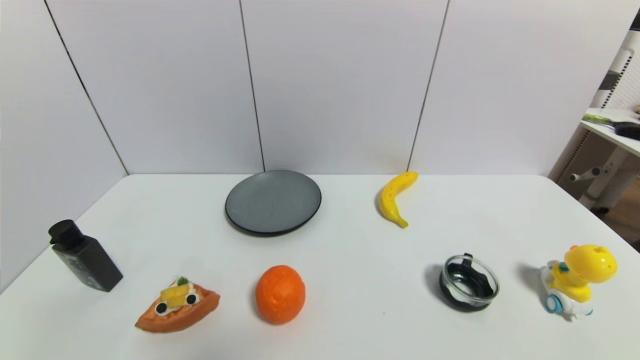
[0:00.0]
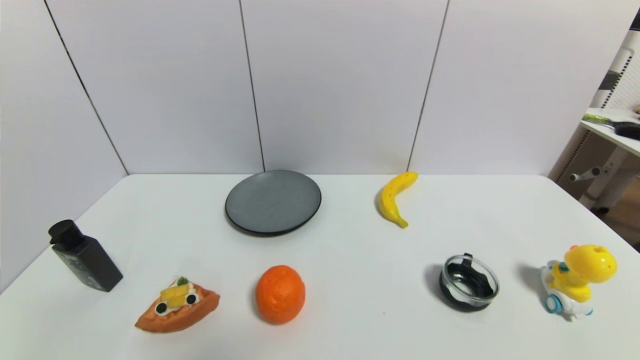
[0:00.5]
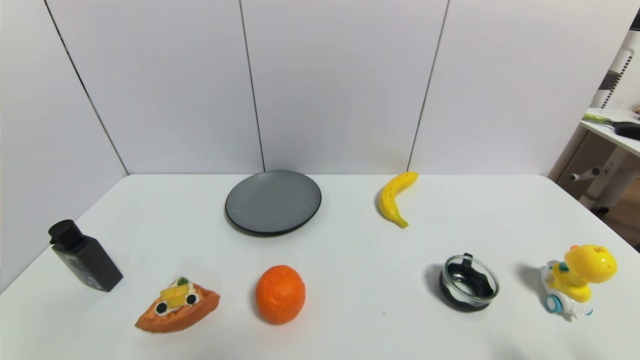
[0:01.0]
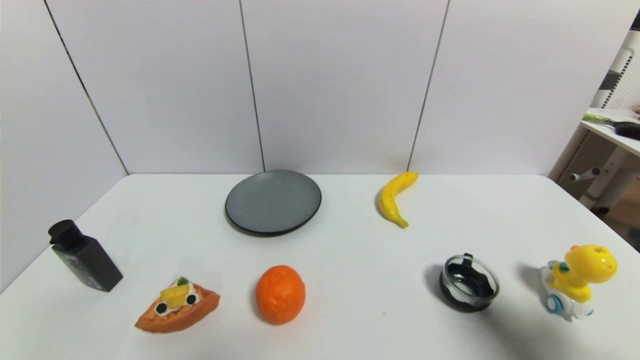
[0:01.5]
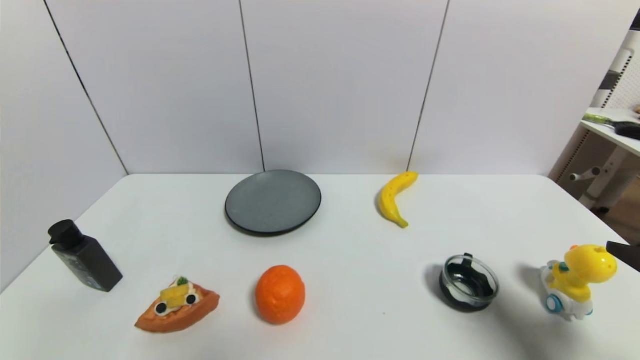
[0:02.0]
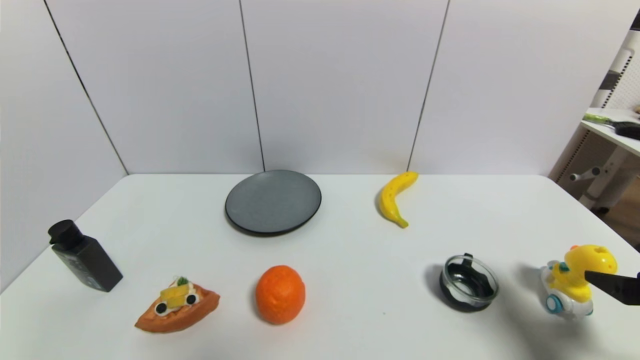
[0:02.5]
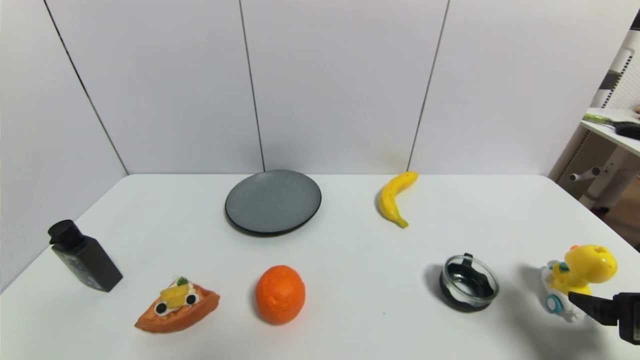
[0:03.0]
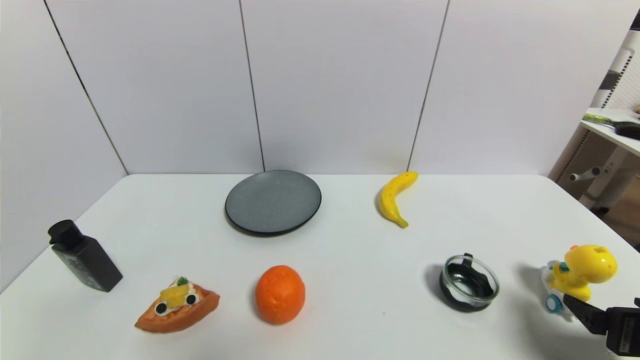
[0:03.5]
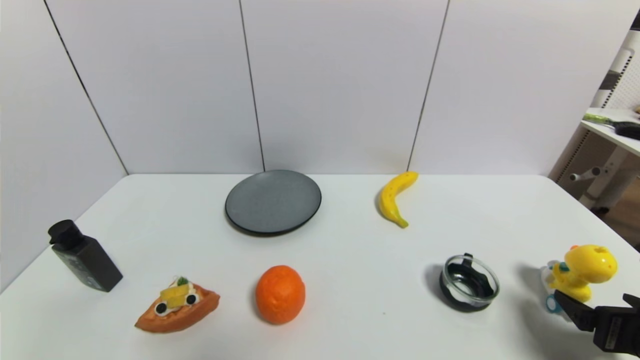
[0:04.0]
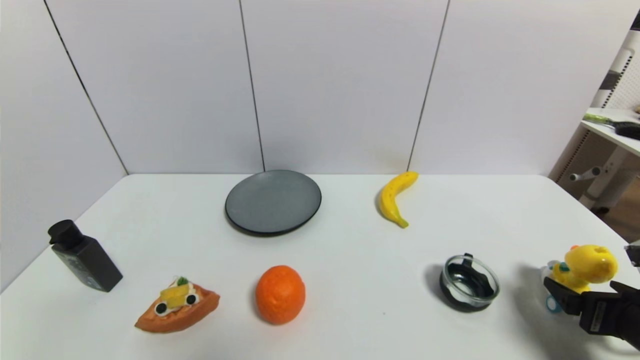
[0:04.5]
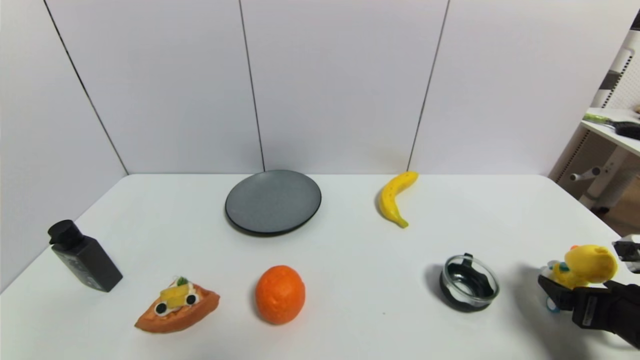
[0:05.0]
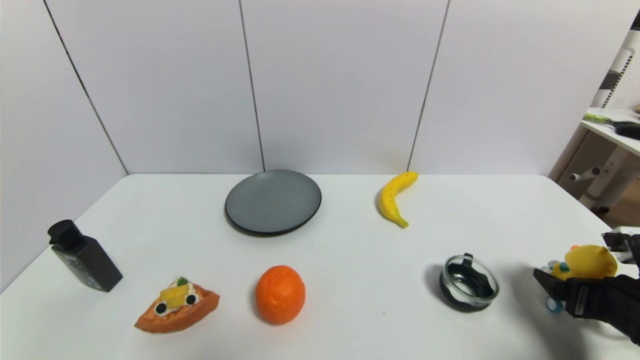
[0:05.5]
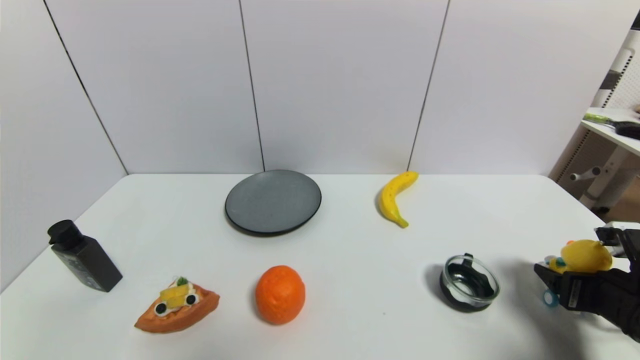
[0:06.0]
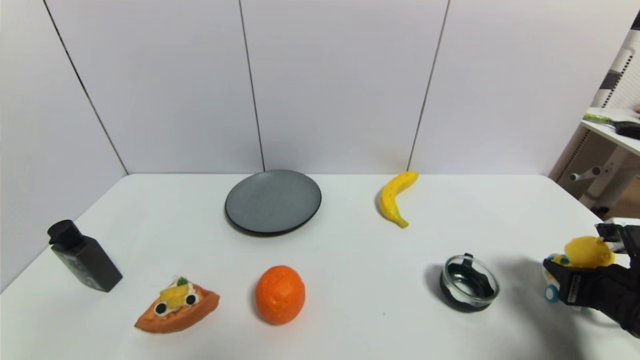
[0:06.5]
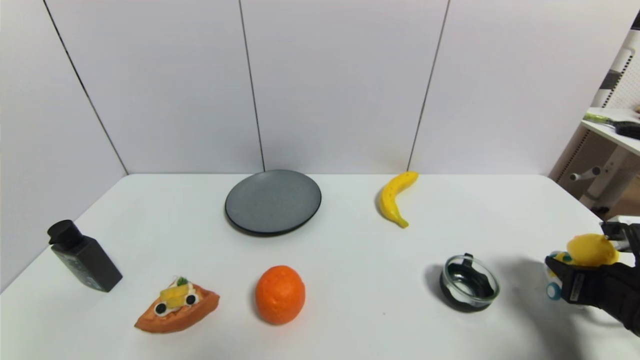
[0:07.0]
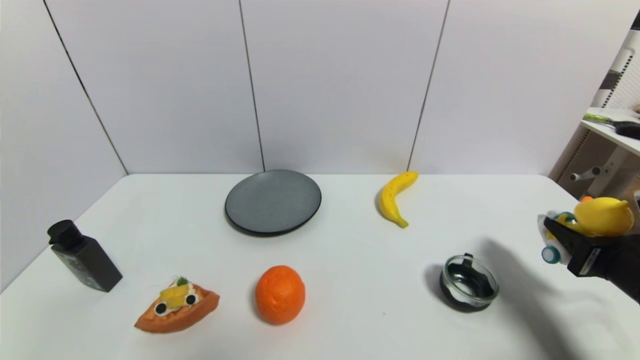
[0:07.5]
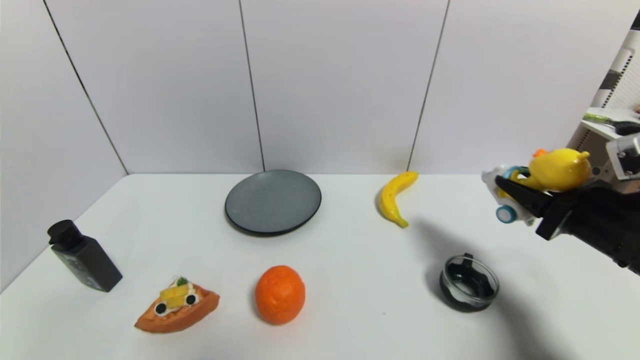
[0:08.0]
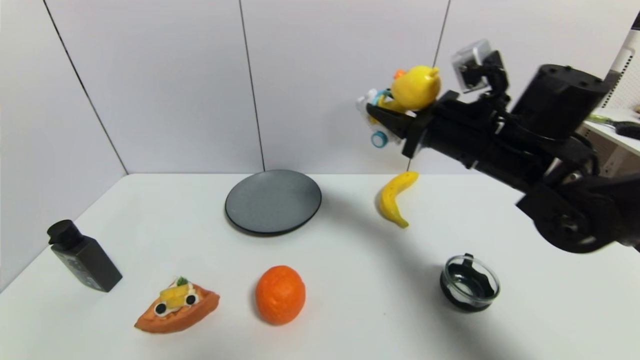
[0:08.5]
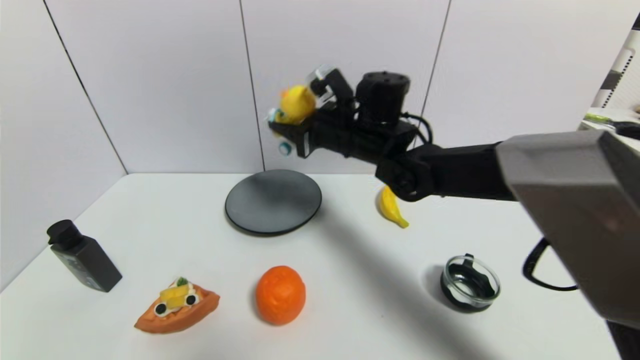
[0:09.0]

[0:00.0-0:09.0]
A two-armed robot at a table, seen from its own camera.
Task of the whole recording: use a gripper to pick the target object and place on the gray plate.
Step, 0:00.0 to 0:06.5: Grasp the duck toy with the right gripper.
0:00.0 to 0:02.0: The right gripper shifts approximately 20 cm upward and forward.
0:02.0 to 0:04.5: The right gripper heads downward, covering some 15 cm.
0:04.5 to 0:07.0: The right gripper closes up.
0:07.0 to 0:09.0: The right gripper moves to the left and forward, some 40 cm.

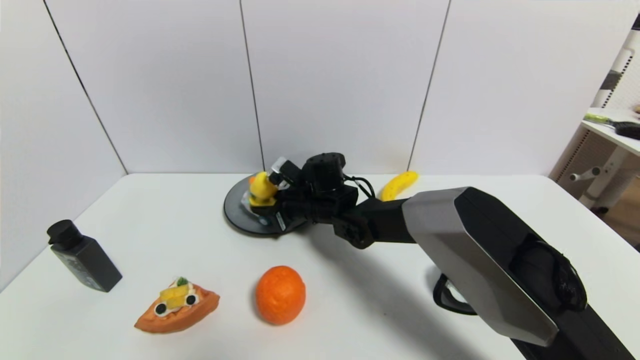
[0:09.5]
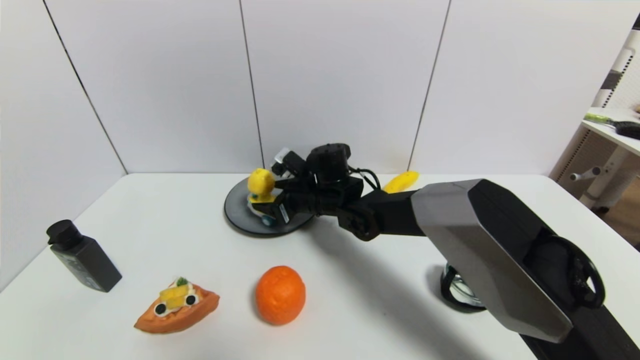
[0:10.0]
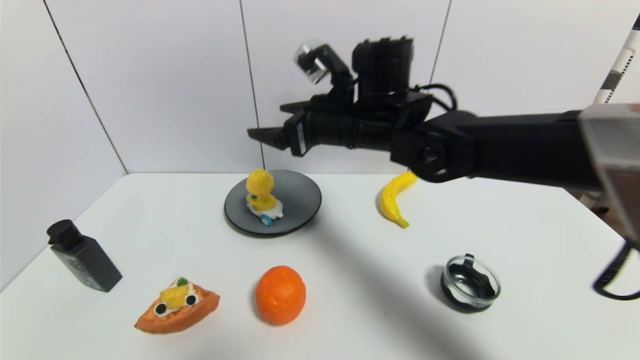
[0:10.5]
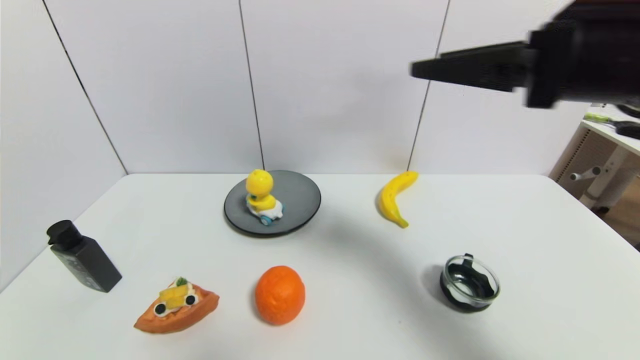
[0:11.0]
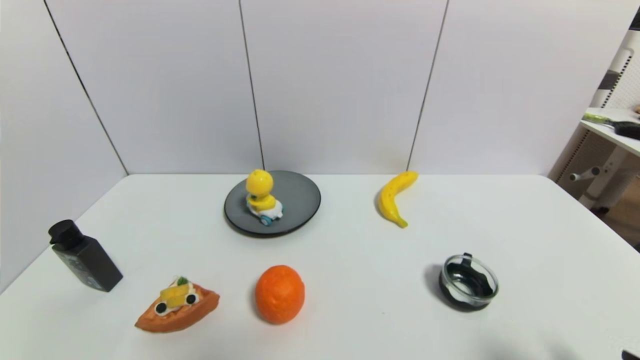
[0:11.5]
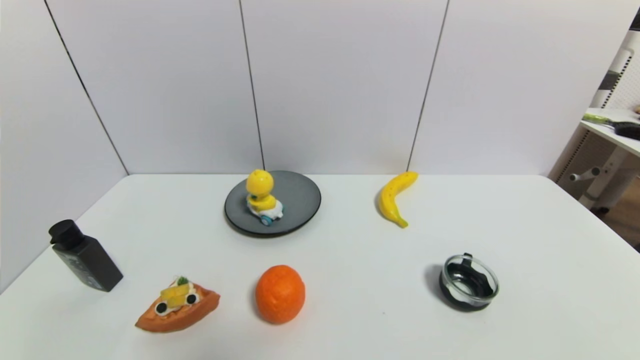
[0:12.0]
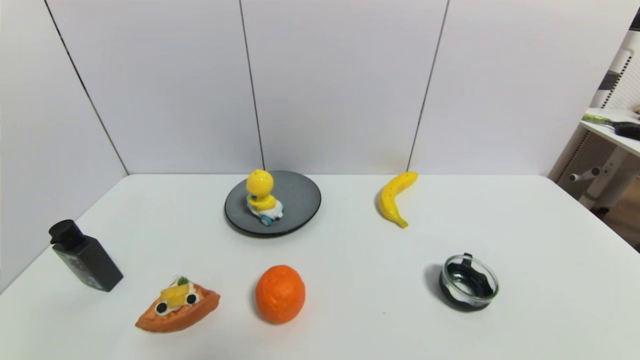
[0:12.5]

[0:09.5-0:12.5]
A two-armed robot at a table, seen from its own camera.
Task of the whole recording: use a gripper to pick the target object and place on the gray plate.
0:09.5 to 0:11.0: The right gripper heads upward, to the right and backward, covering roughly 40 cm, and opens.
0:11.0 to 0:12.5: The right gripper shifts roughly 35 cm downward, backward and to the right.

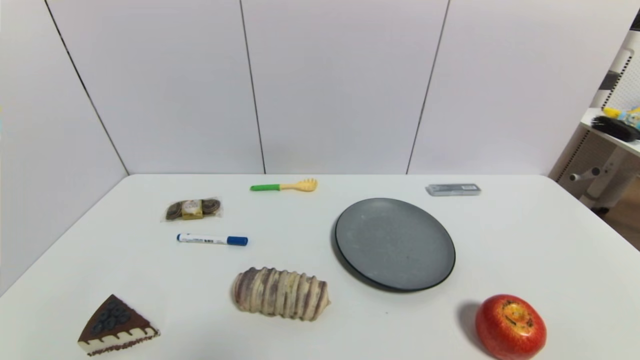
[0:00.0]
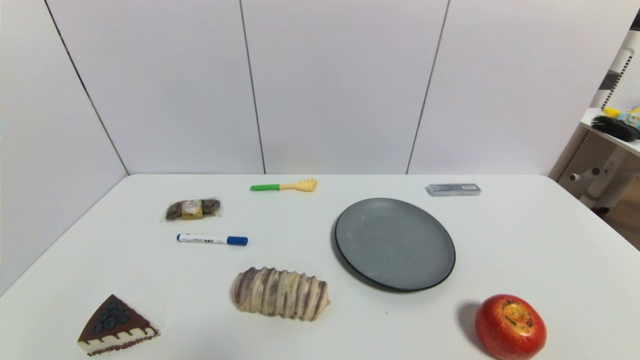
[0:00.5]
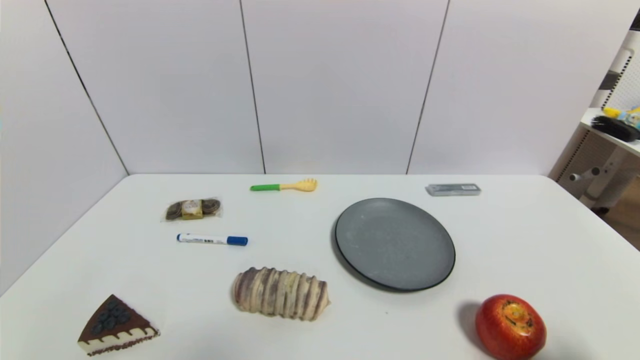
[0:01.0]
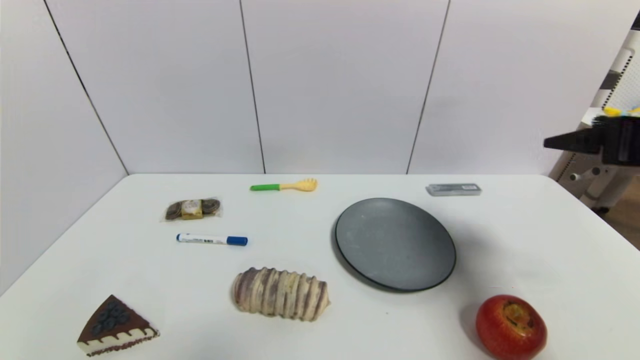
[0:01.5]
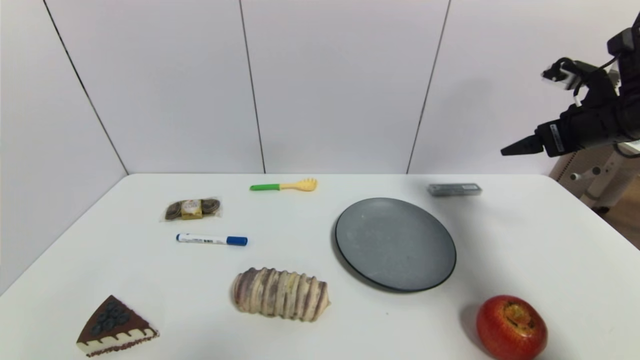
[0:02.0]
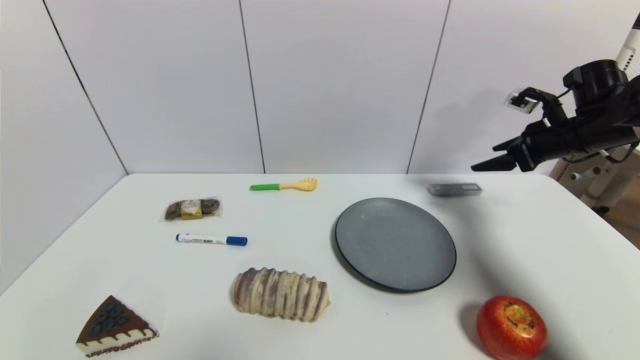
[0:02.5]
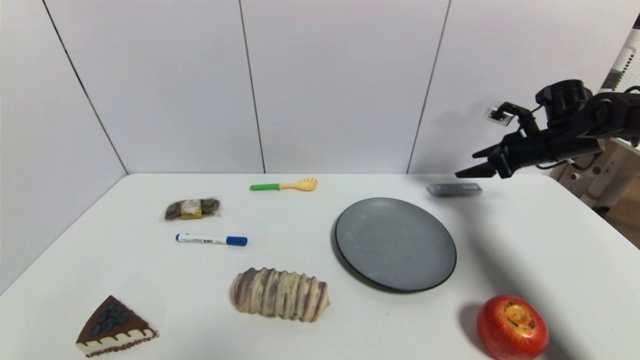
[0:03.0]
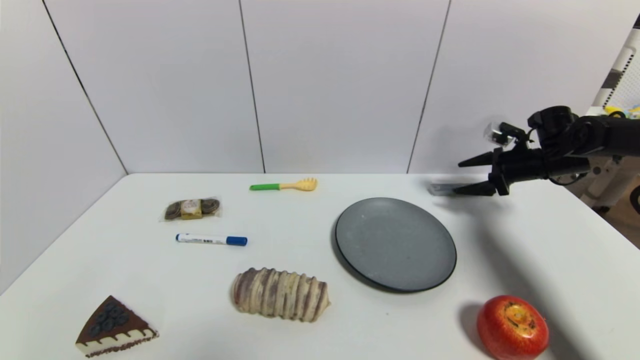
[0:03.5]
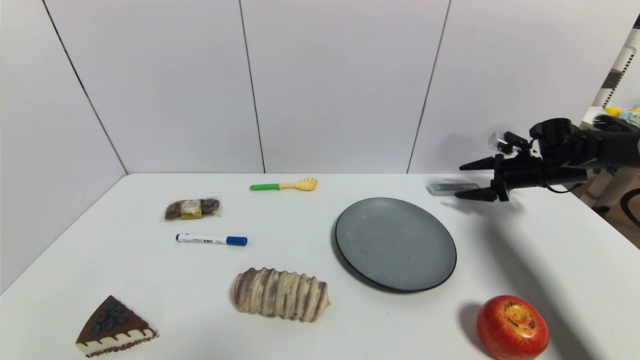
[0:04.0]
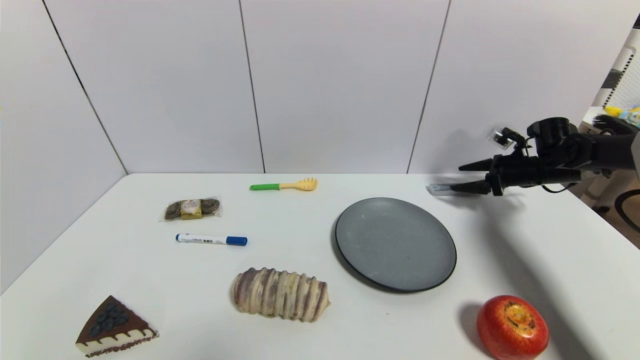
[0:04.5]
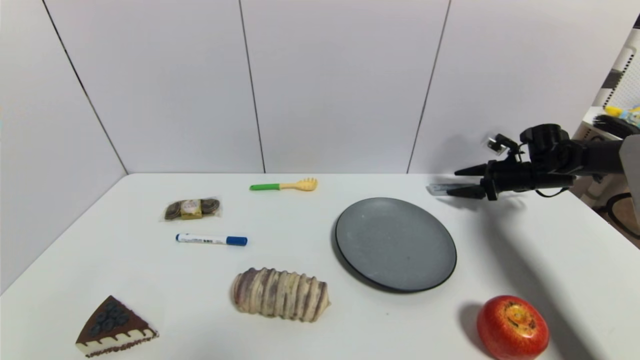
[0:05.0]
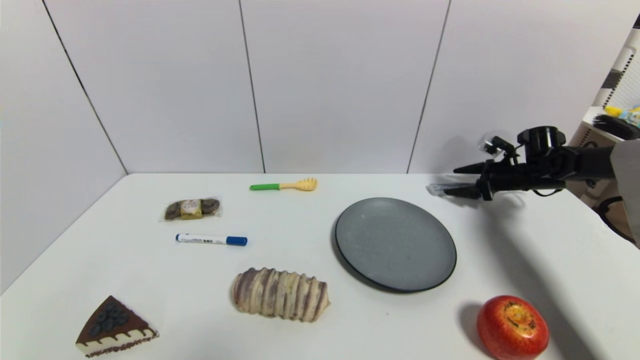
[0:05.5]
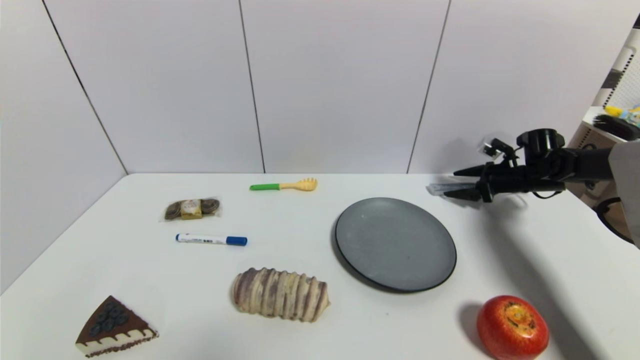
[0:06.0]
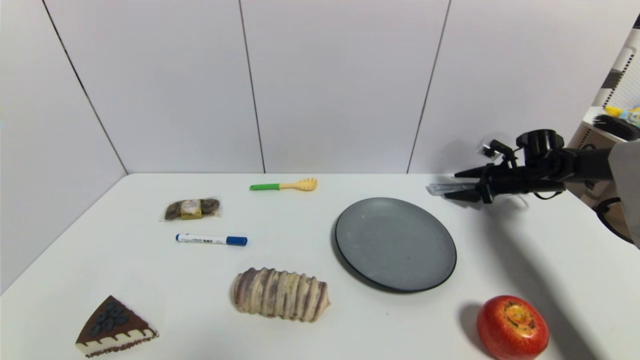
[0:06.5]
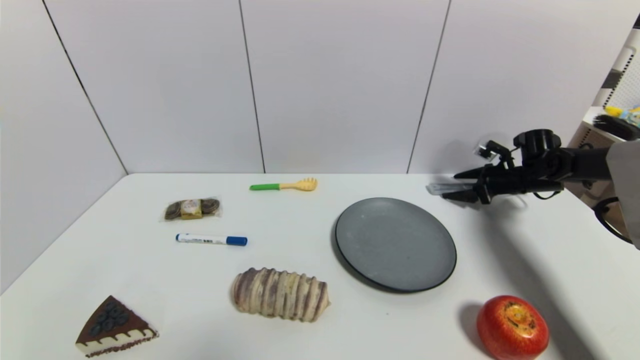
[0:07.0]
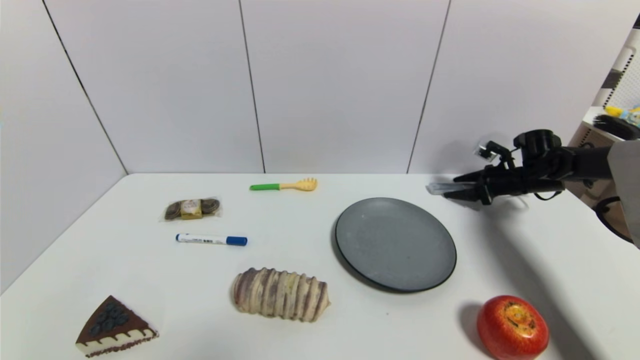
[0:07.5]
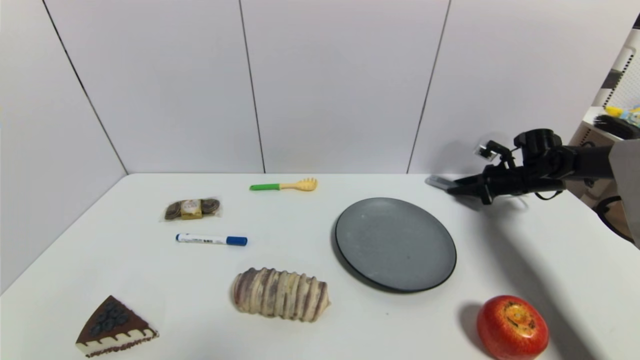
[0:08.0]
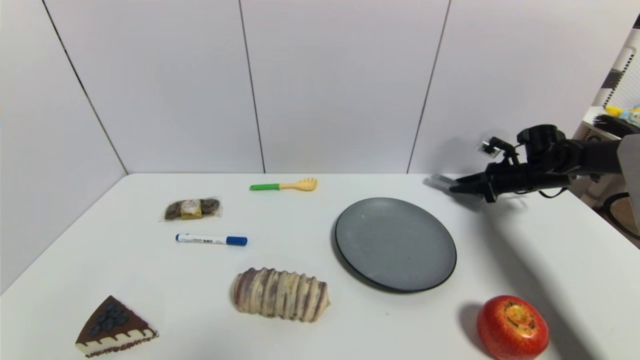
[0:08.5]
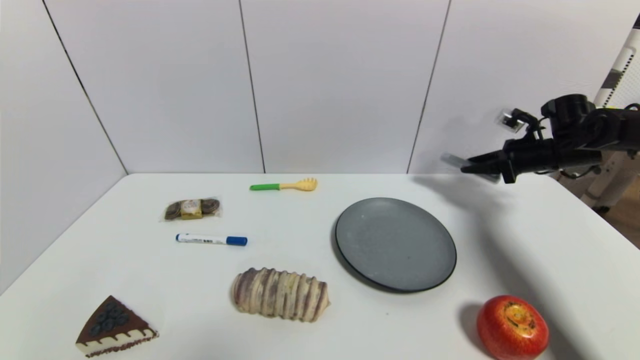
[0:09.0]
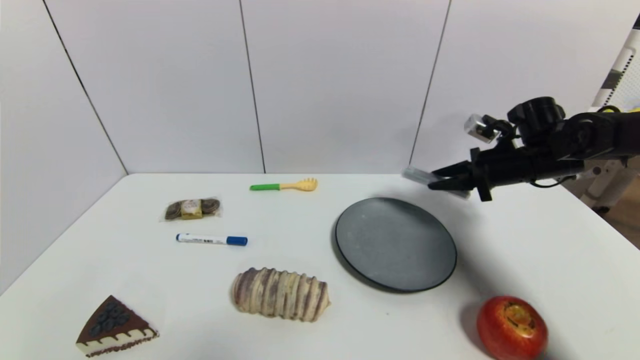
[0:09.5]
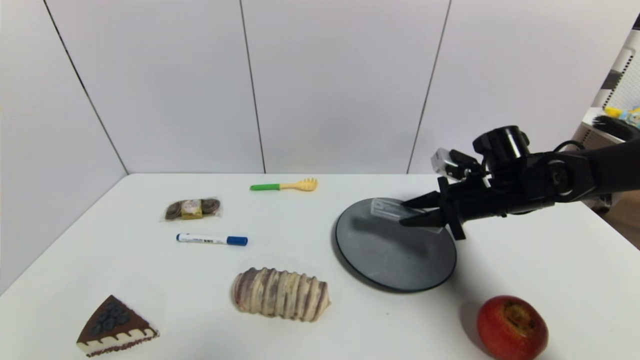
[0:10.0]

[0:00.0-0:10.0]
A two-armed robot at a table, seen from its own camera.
Task of the whole recording: use a gripper to pick the target object and place on the gray plate.
Step, 0:00.0 to 0:08.0: Grasp the compasses with the right gripper.
0:00.0 to 0:02.0: The right gripper is displaced forward and upward by some 40 cm.
0:02.0 to 0:04.0: The right gripper moves downward and forward, approximately 20 cm.
0:04.0 to 0:06.0: The grippers make only small movements.
0:06.0 to 0:08.0: The right gripper closes.
0:08.0 to 0:10.0: The right gripper goes some 20 cm to the left and backward.
